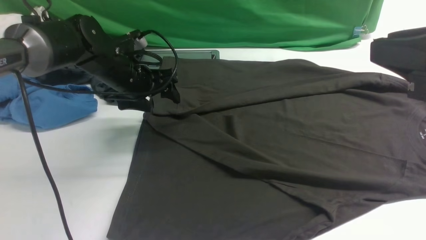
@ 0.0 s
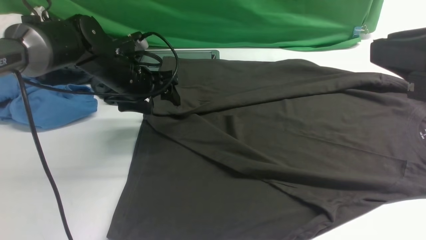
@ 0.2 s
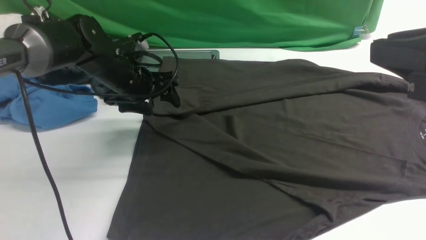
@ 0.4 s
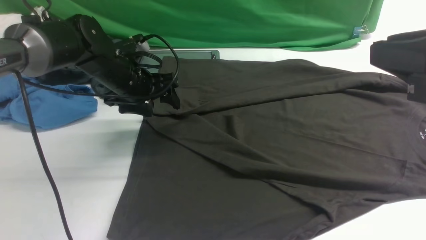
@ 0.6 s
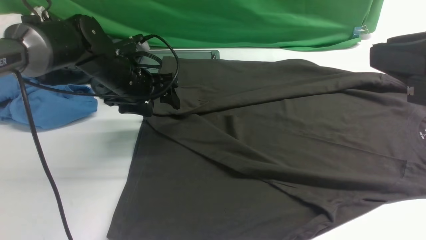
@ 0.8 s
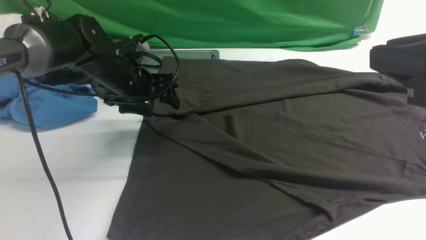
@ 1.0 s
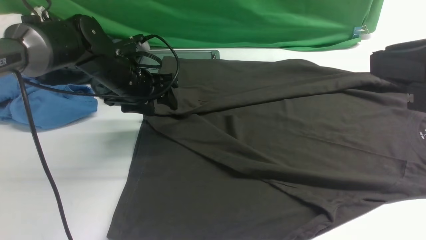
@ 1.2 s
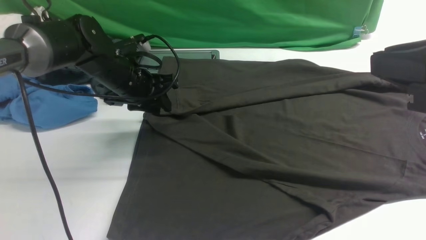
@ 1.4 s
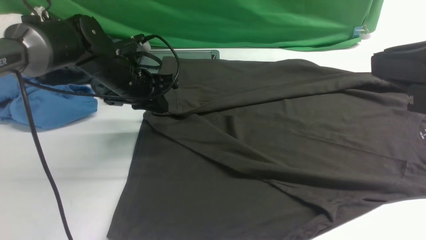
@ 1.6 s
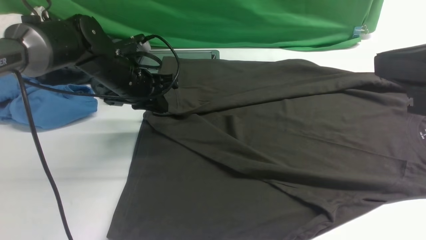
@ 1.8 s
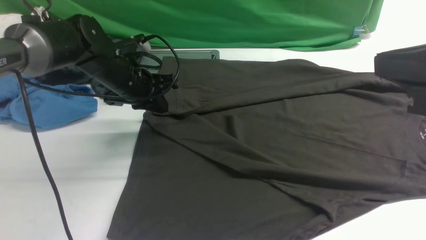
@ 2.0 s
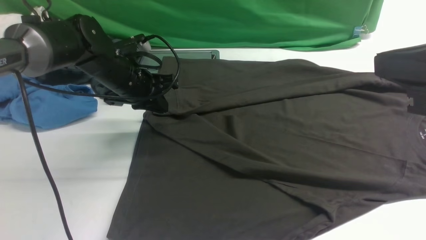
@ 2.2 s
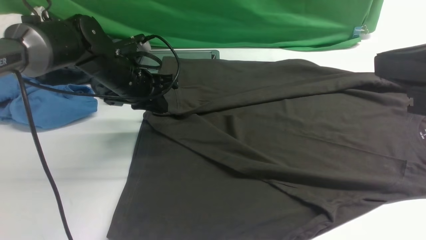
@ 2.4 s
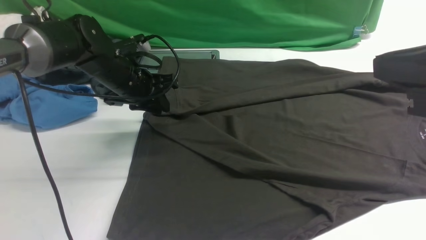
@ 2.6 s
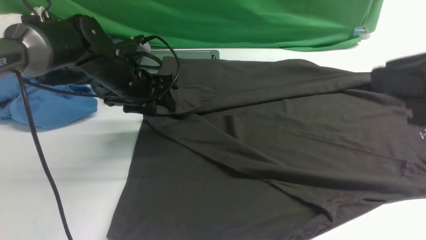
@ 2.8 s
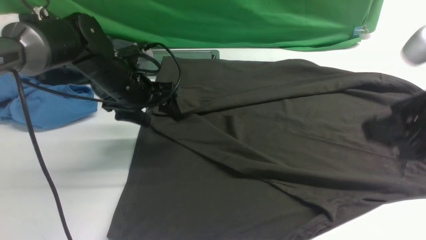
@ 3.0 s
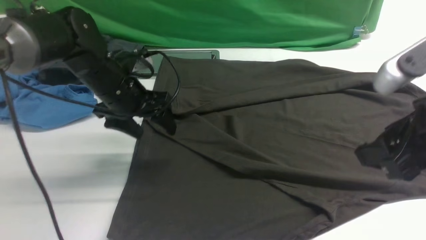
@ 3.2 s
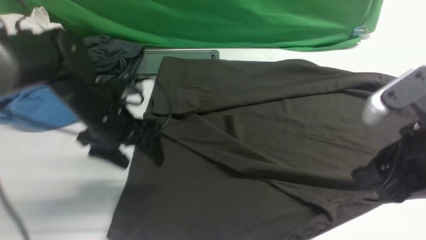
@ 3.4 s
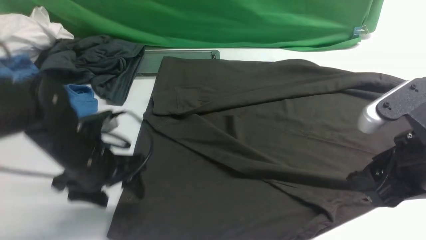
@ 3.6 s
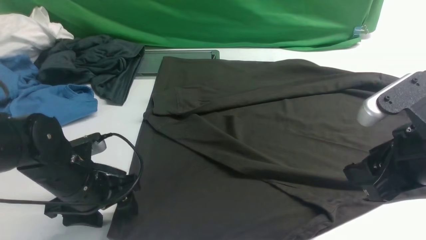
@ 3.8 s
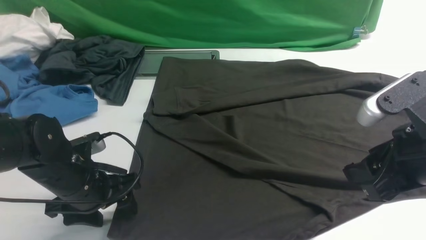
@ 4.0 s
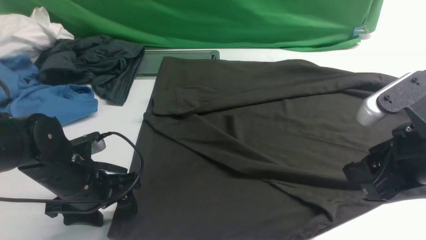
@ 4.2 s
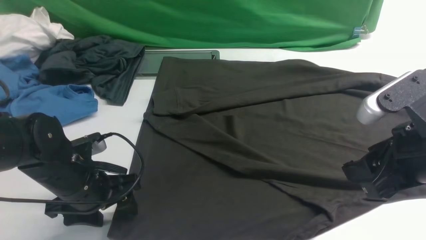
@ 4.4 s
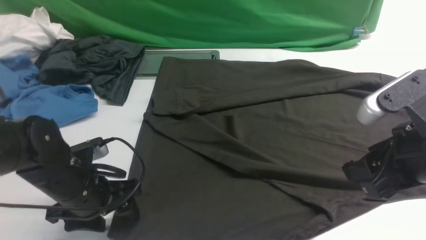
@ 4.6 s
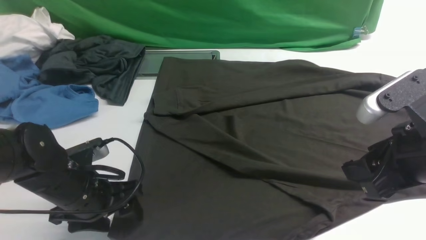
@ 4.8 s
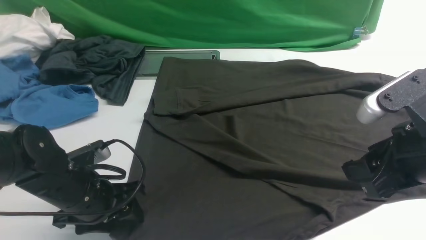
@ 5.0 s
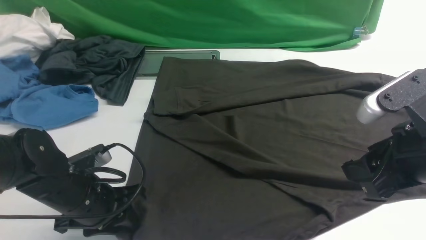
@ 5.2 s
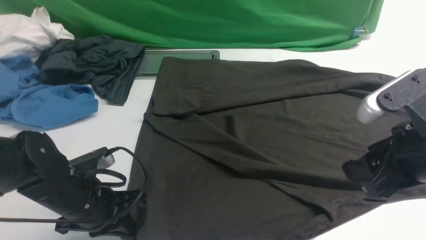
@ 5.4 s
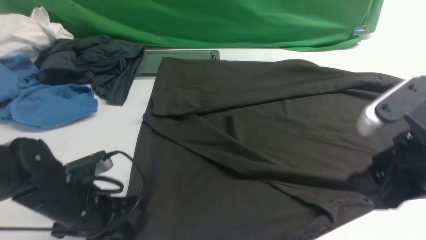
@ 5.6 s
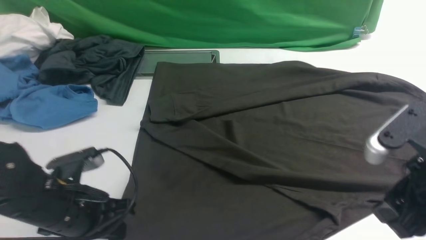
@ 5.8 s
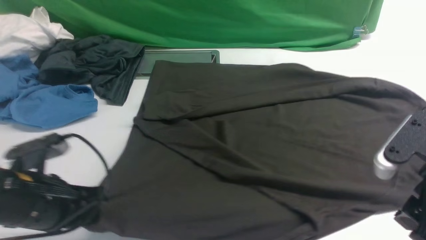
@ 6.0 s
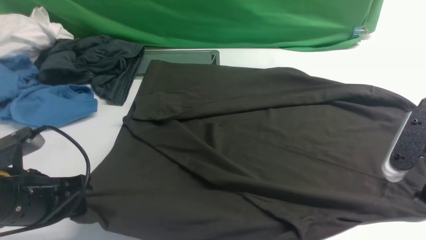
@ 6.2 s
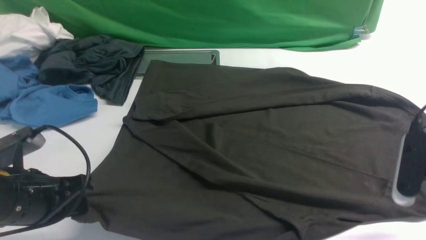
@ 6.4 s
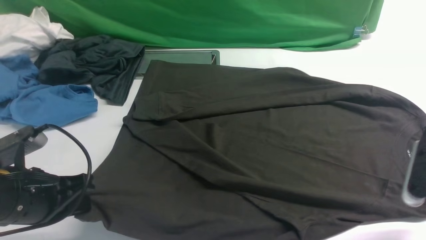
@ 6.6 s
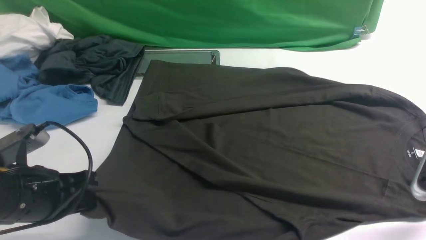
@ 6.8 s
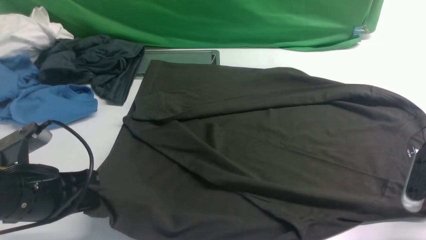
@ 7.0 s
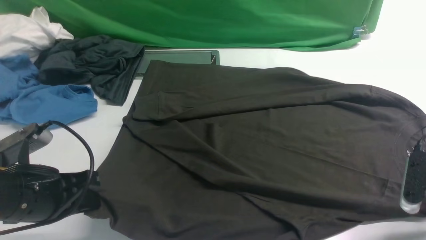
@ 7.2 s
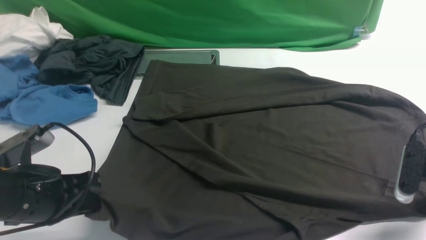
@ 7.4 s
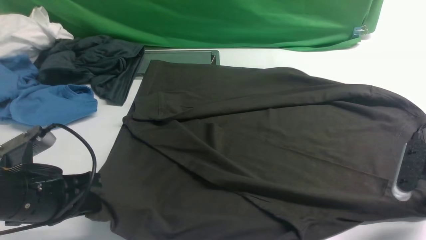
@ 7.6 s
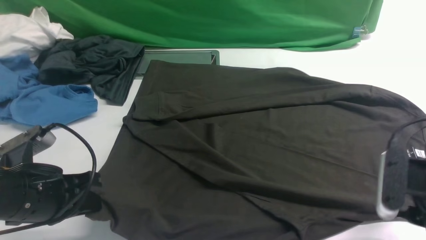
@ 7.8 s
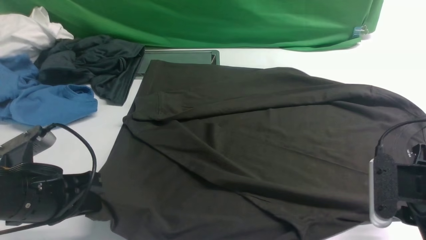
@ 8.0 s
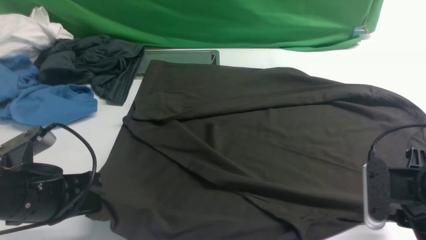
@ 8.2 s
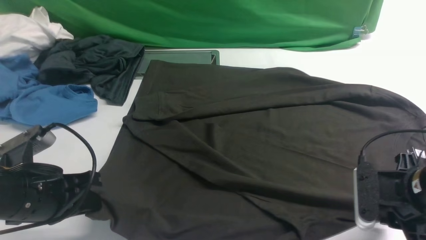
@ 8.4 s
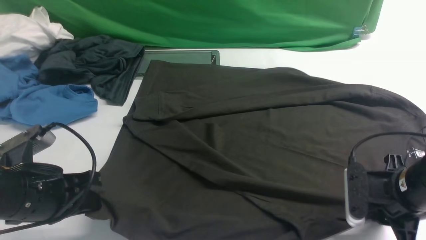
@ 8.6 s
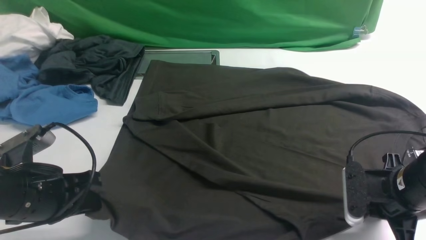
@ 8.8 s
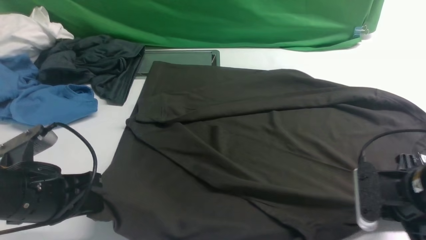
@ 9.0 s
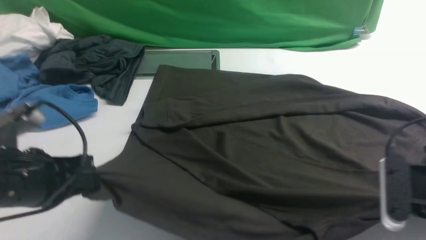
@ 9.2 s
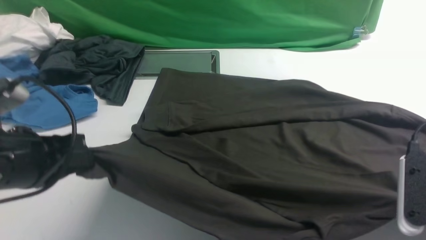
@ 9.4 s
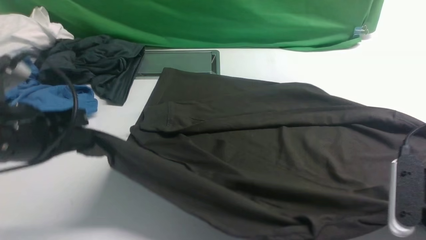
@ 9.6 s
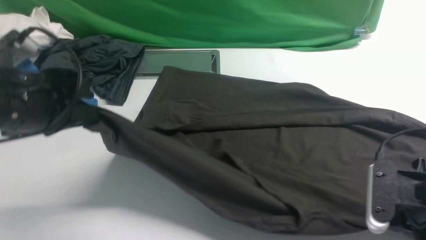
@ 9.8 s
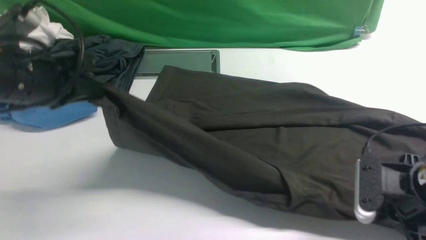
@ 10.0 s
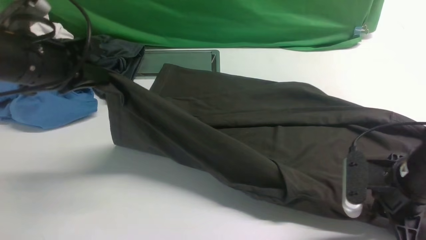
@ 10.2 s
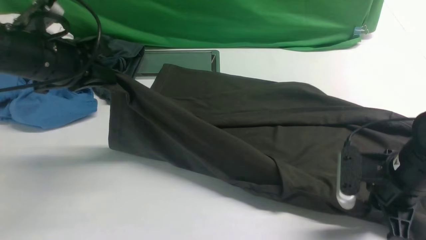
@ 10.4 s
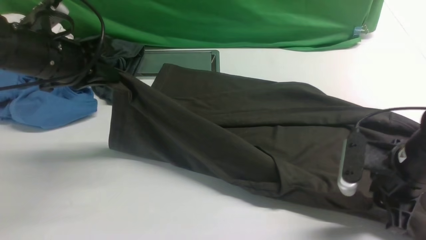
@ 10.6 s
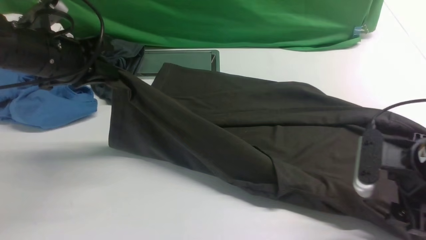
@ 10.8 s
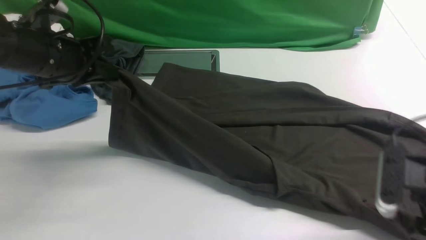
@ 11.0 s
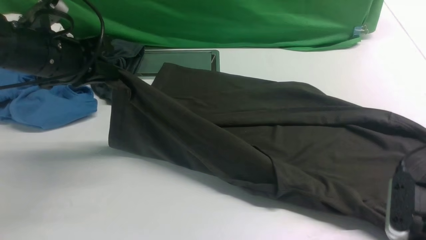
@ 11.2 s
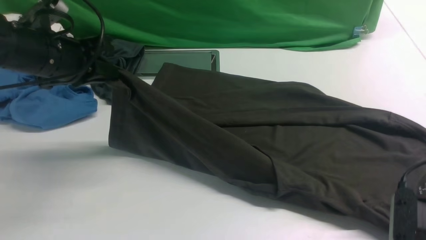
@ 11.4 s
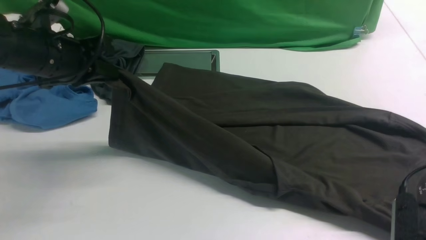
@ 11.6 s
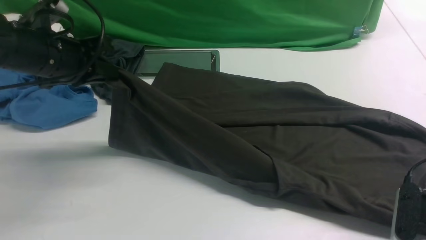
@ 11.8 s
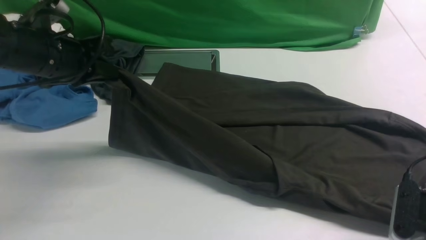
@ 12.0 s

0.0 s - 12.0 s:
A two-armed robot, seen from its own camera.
Step, 0.0 s - 9.4 s: use both arms simultaneously to clamp the lower edge of the clothing fabric.
0.0 s - 1.6 s: The left gripper closes its fingers.
1.6 s - 3.0 s: The left gripper opens up. Meanwhile the right gripper opens up.
3.0 s - 4.4 s: The right gripper is displaced downward by roughly 5 cm. Meanwhile the left gripper travels backward by roughly 15 cm.
4.4 s - 6.0 s: The left gripper is displaced upward and backward by about 5 cm, and closes up.
6.0 s - 7.6 s: The right gripper is displaced downward and to the right by approximately 10 cm, and closes.
7.6 s - 9.0 s: The right gripper closes its fingers.
9.0 s - 10.4 s: The left gripper goes approximately 15 cm forward and upward.
10.4 s - 12.0 s: The right gripper is displaced backward and to the right by roughly 10 cm, and opens, then closes again.

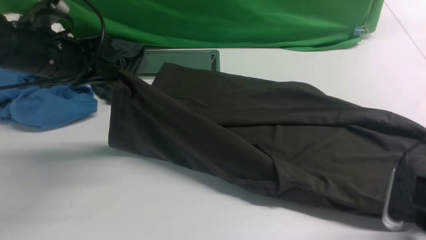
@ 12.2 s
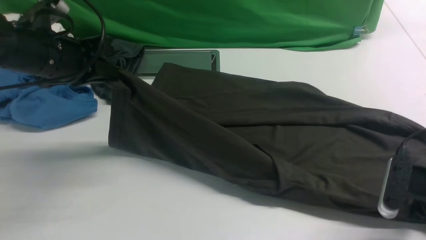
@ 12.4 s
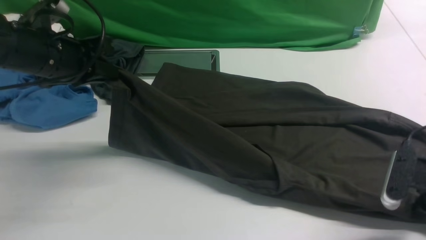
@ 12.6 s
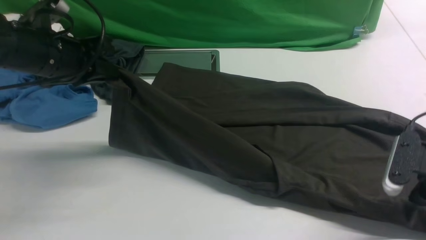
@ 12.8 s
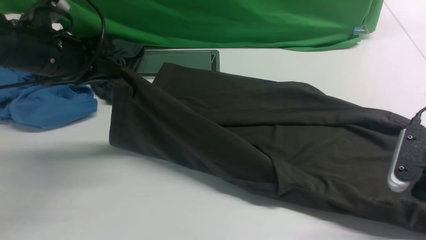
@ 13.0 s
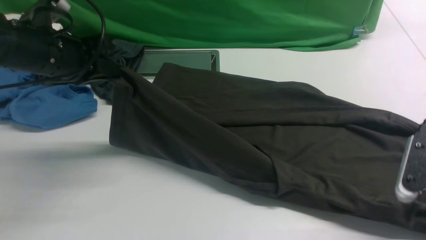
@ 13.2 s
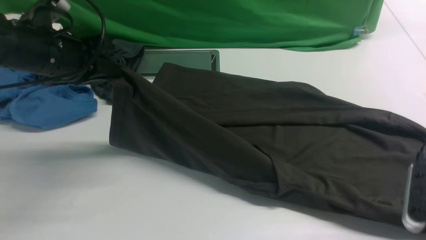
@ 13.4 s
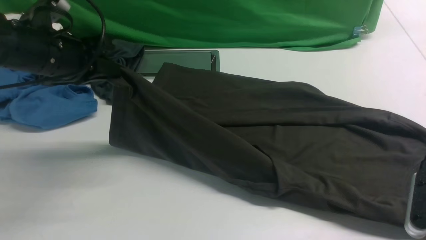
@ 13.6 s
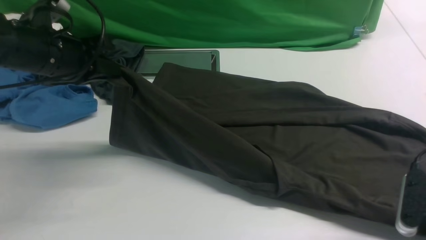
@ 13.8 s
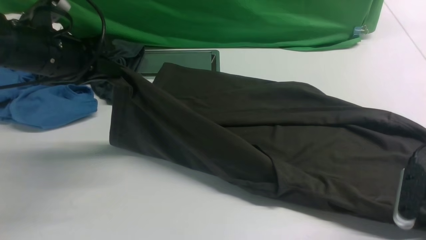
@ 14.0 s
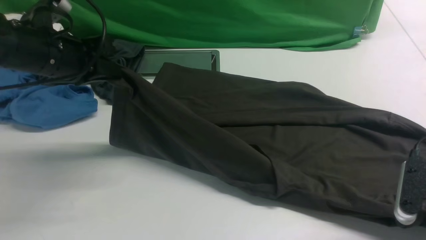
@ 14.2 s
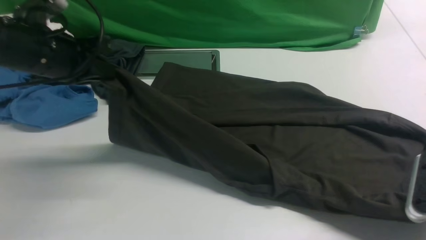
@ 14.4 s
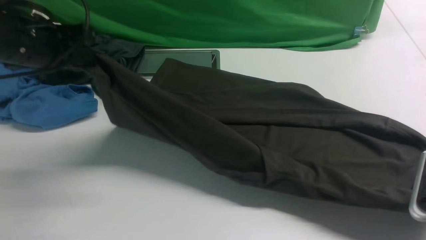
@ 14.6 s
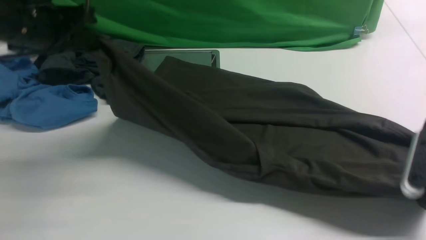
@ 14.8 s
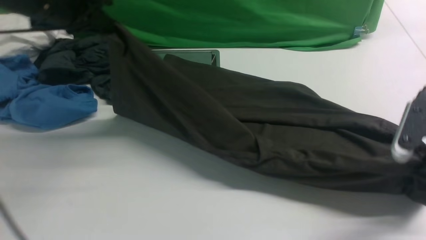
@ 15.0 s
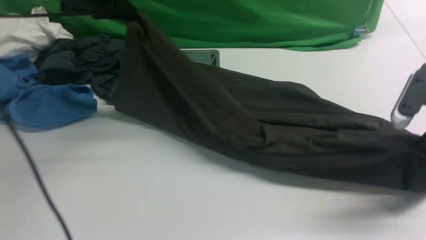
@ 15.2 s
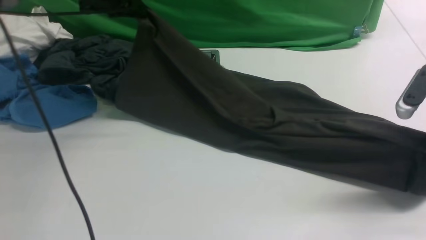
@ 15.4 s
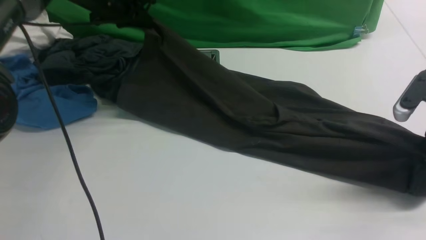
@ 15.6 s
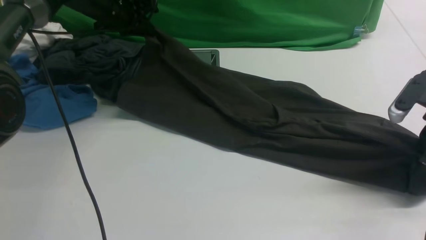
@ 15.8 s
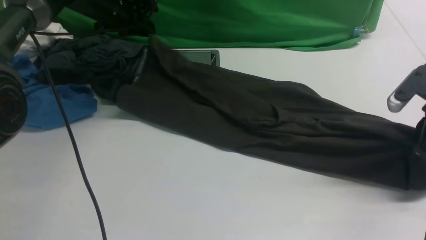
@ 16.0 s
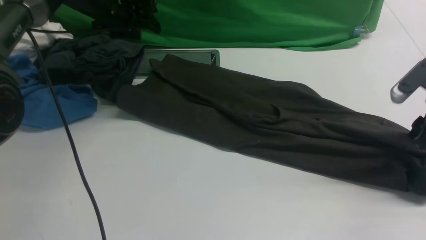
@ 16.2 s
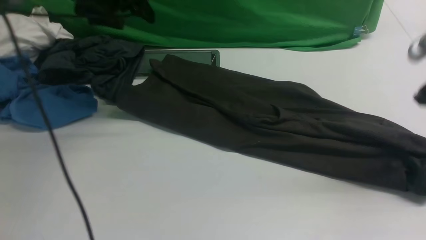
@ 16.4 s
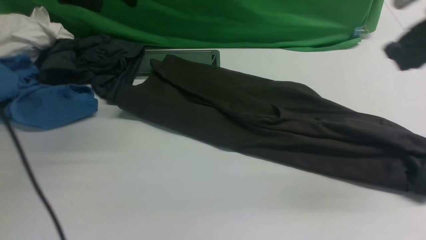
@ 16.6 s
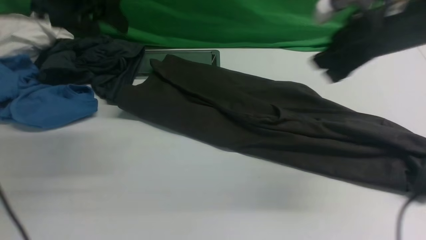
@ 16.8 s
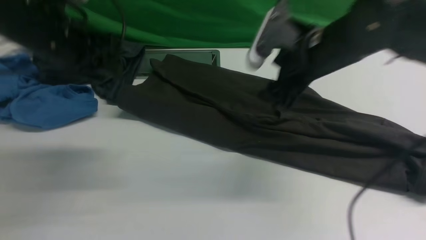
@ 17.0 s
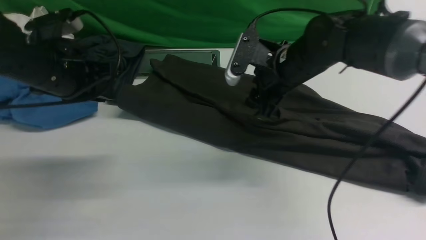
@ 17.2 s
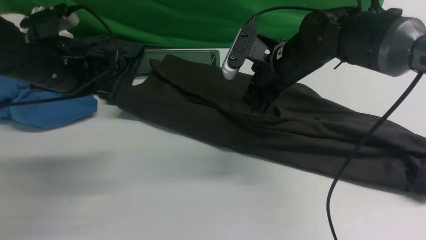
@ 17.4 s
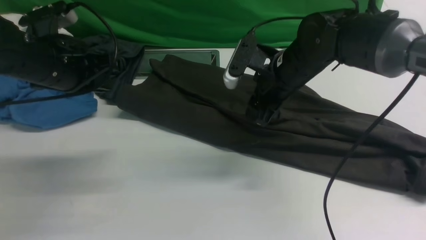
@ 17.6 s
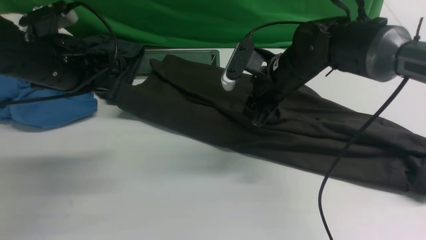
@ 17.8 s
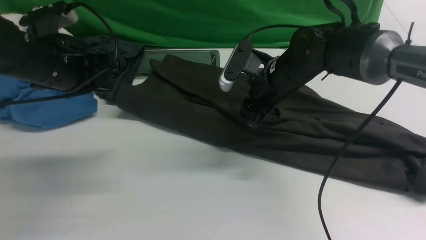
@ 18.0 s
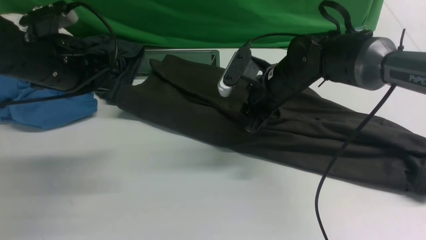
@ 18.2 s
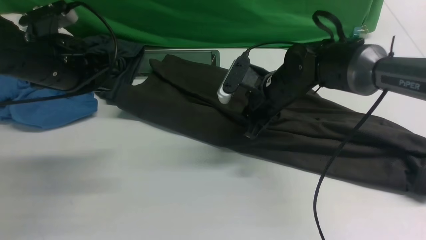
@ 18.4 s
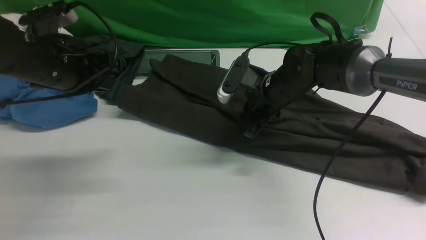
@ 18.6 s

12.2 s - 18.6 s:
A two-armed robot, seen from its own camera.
Step, 12.2 s - 17.0 s: use both arms to drag the lower edge of the fabric forward and fold it over the upper edge.
12.2 s - 13.8 s: The right gripper opens, then closes once more.
13.8 s - 15.4 s: The right gripper goes roughly 10 cm forward and upward, and closes up. Meanwhile the left gripper moves forward, approximately 15 cm.
15.4 s - 17.0 s: The right gripper is displaced to the left and forward by some 20 cm, and opens up, while the left gripper travels backward by approximately 15 cm, and opens up.
17.0 s - 18.6 s: The right gripper travels downward by about 10 cm, and closes.
